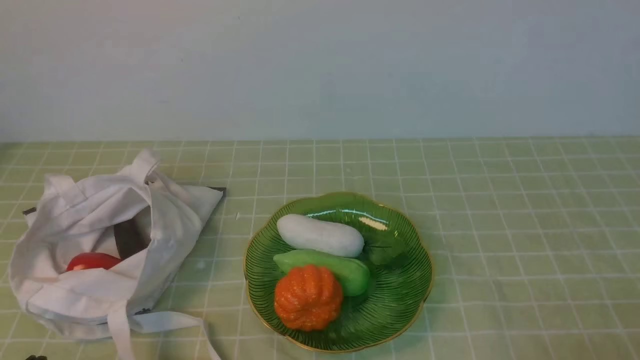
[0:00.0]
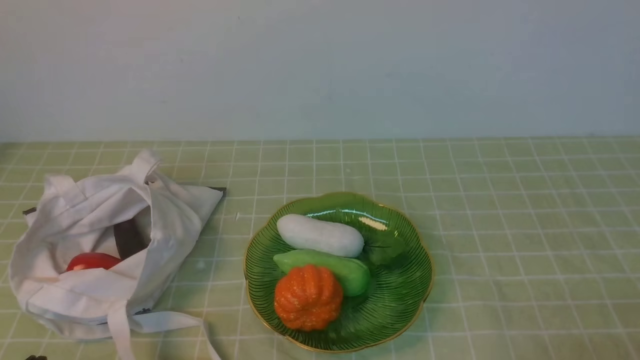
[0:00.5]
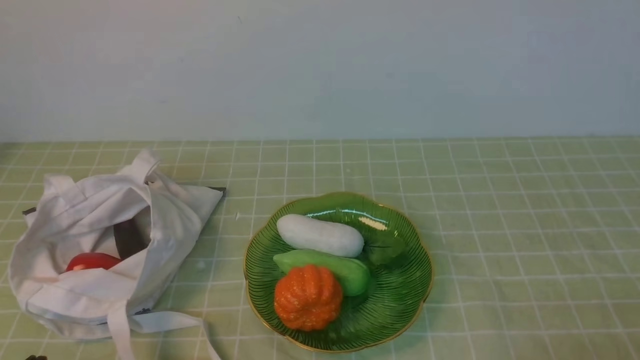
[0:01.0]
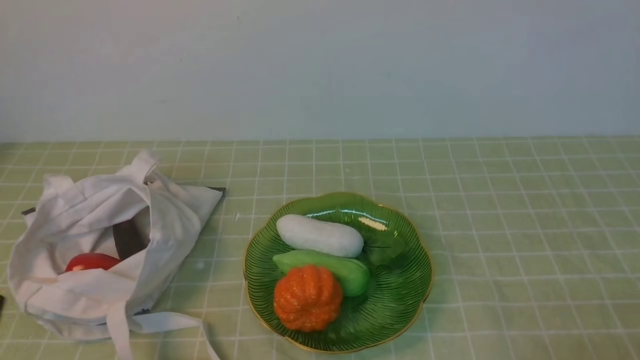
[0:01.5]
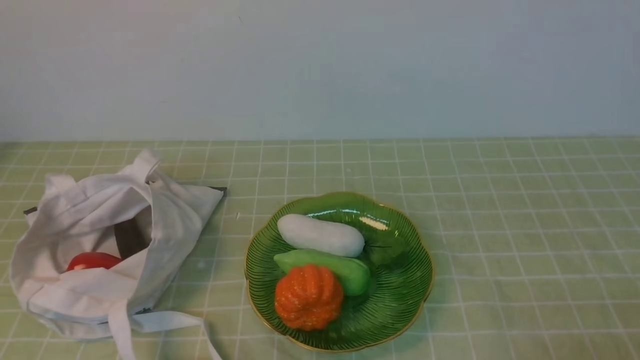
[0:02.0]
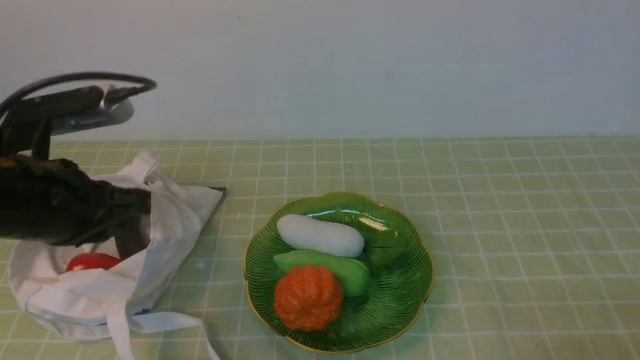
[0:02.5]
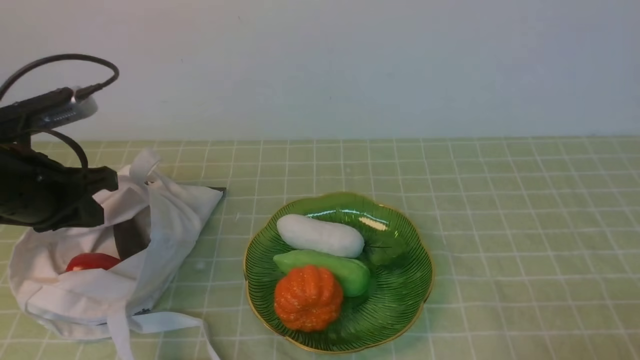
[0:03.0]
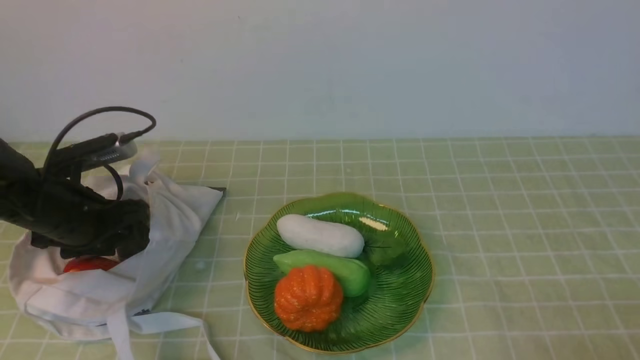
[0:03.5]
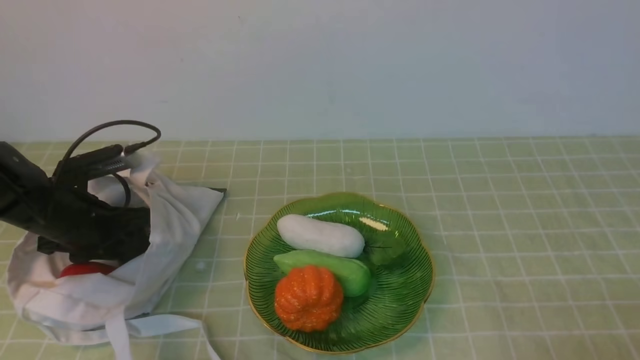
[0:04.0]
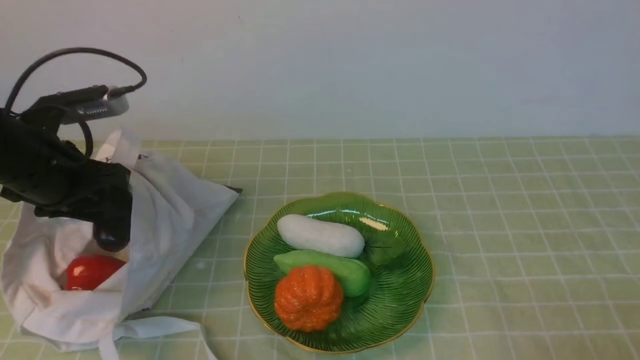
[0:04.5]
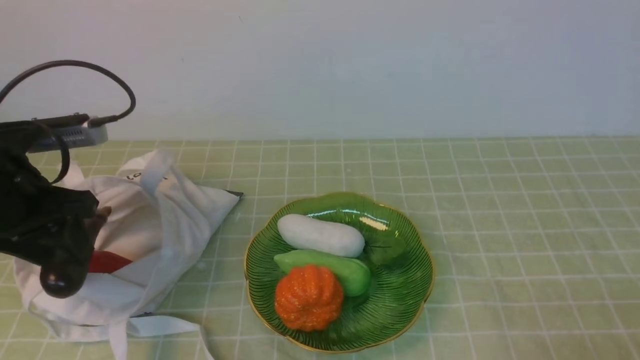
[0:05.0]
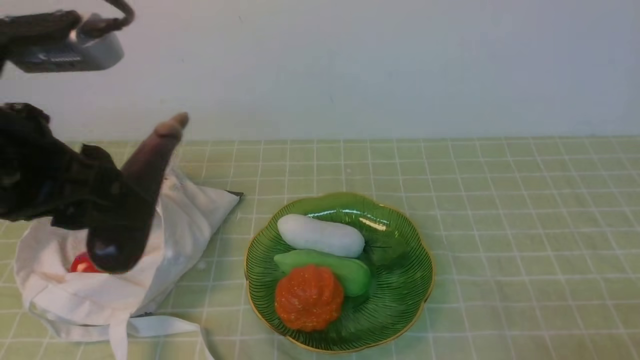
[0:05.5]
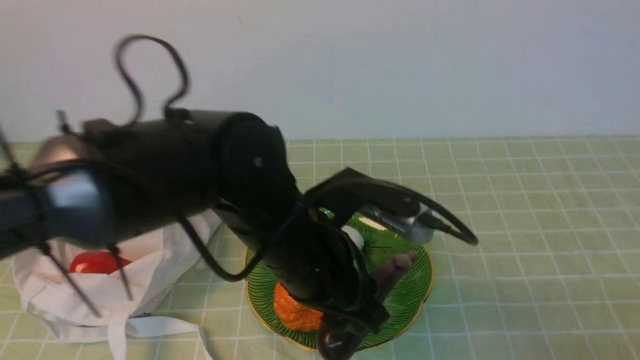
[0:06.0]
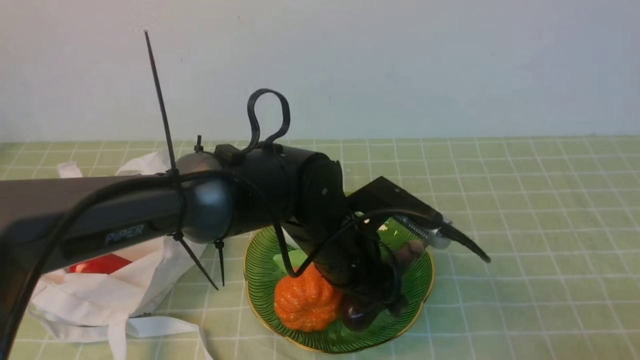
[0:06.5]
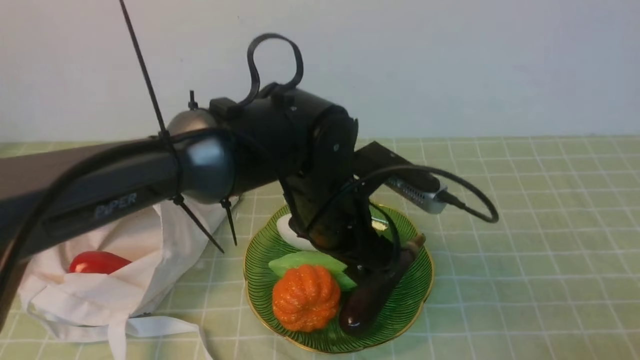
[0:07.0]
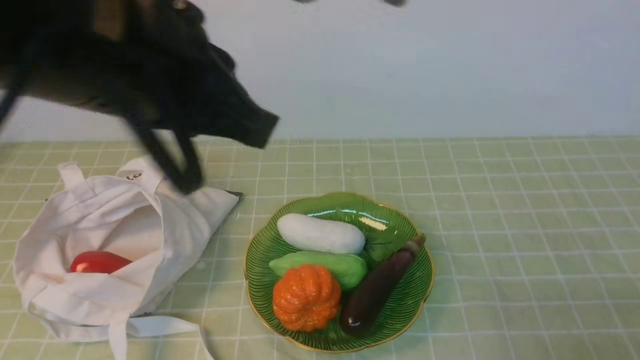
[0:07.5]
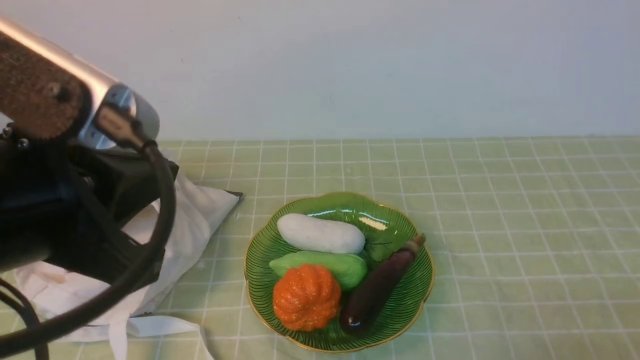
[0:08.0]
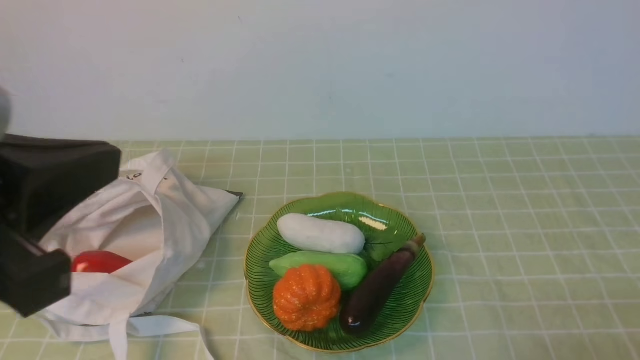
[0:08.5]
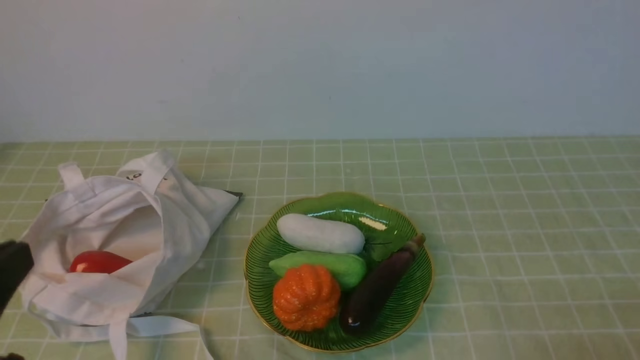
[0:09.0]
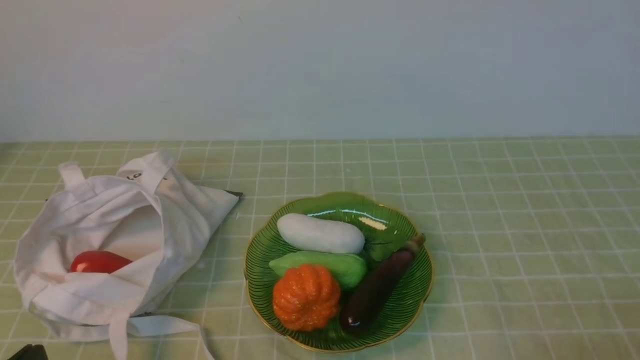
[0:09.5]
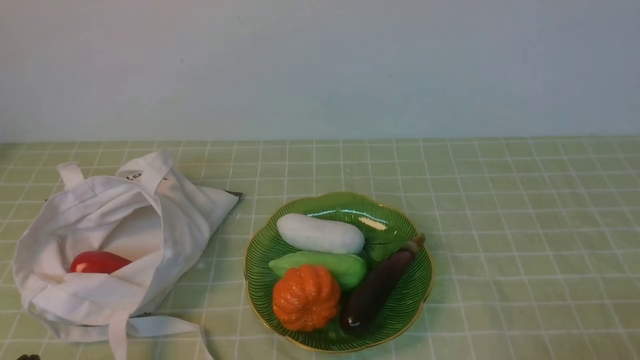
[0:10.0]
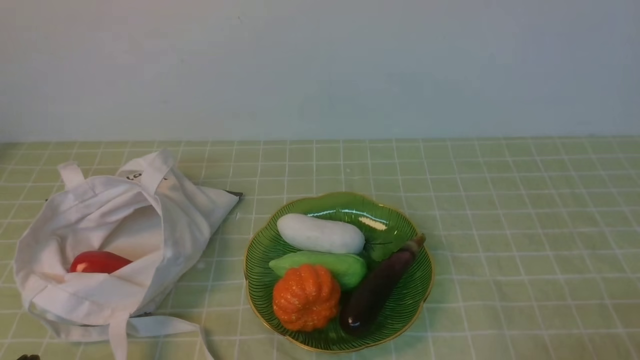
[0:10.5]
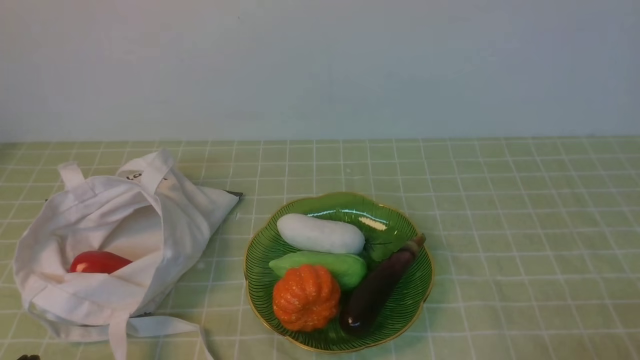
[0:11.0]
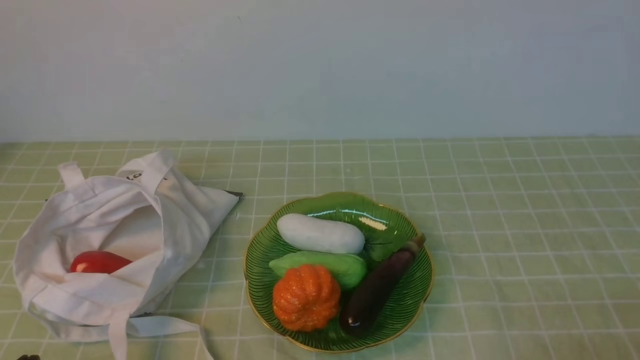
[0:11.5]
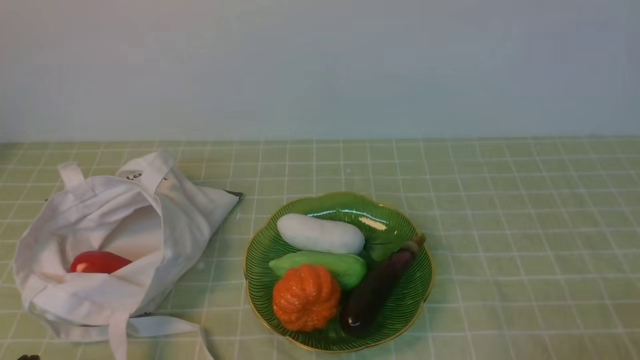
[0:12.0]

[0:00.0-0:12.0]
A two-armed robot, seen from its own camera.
Task of the whole recording: take vegetables from bag on green coffee tablecloth place on plate.
Step, 0:00.0 to 0:04.0: Grasp the eggplant with left gripper.
Step, 0:04.5 to 0:07.0: Place the eggplant on the plate with left gripper.
0:02.0 to 0:04.0: The left gripper goes some 30 cm forward and downward, and opens up.
0:04.0 to 0:06.0: The left gripper moves to the right, upward and backward, roughly 30 cm.
0:06.0 to 0:08.0: The left gripper moves upward, backward and to the left, about 20 cm, and closes its fingers.
0:08.0 to 0:10.0: The left gripper moves downward and to the left, some 25 cm.
0:10.0 to 0:12.0: The two grippers keep their place.

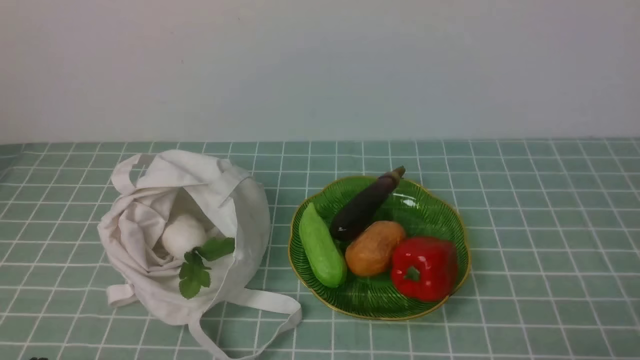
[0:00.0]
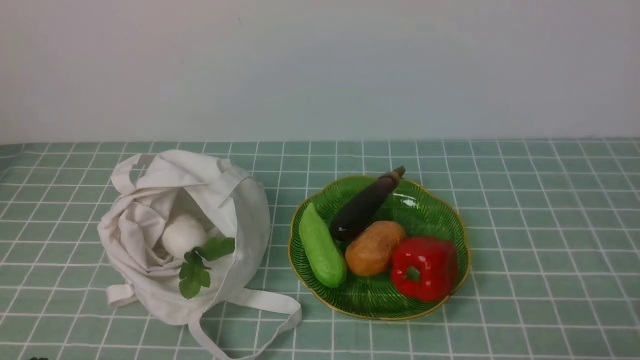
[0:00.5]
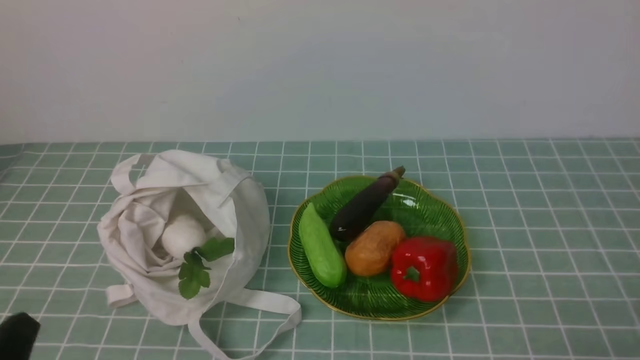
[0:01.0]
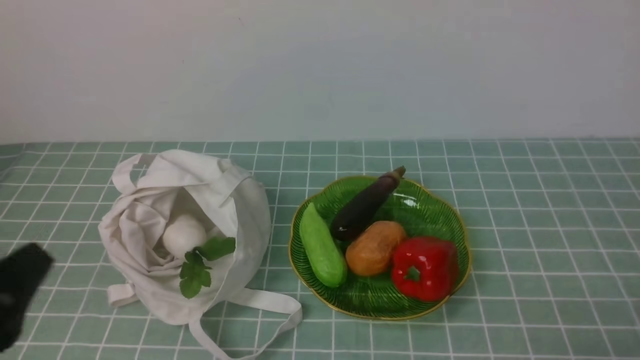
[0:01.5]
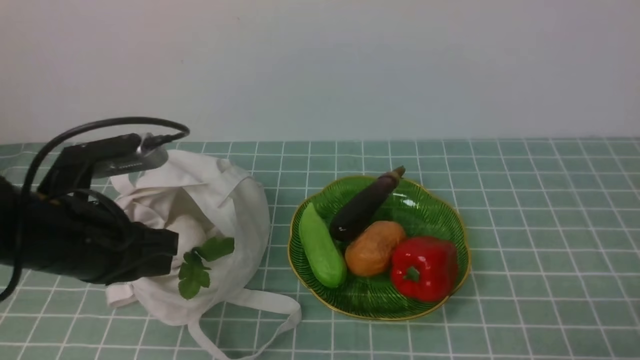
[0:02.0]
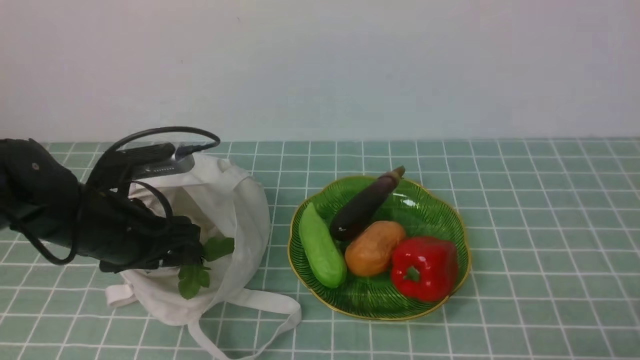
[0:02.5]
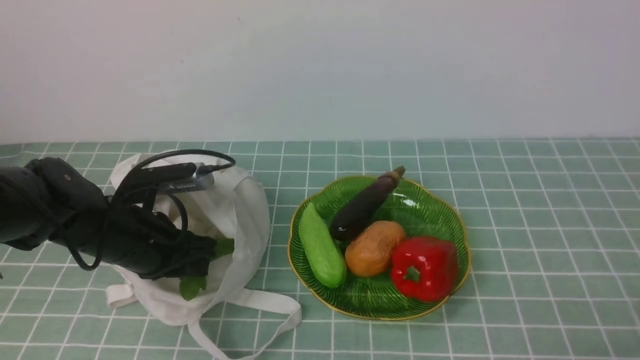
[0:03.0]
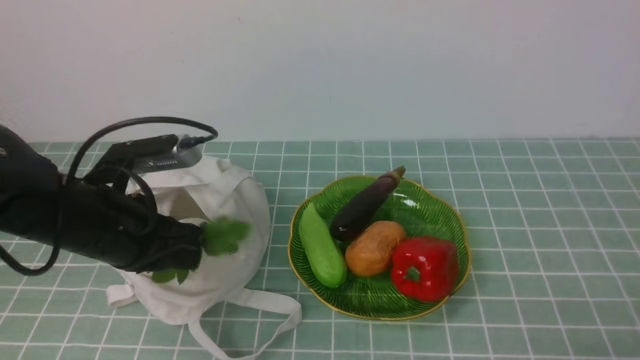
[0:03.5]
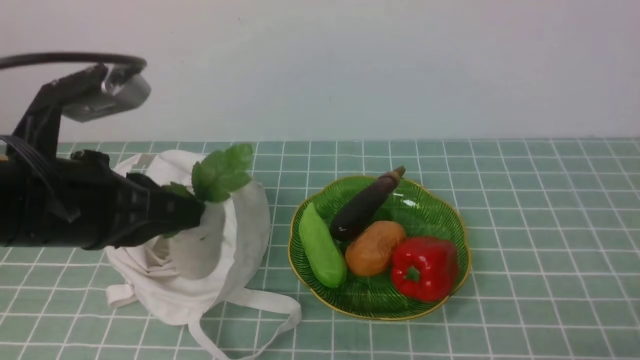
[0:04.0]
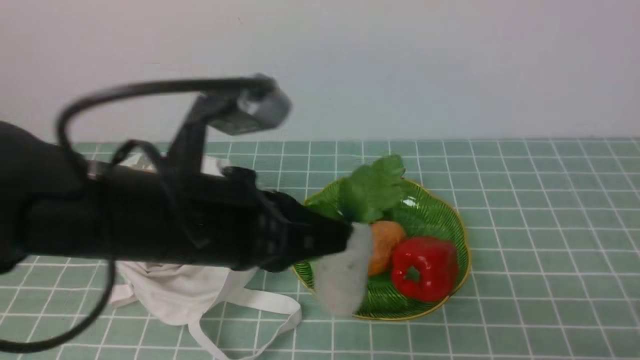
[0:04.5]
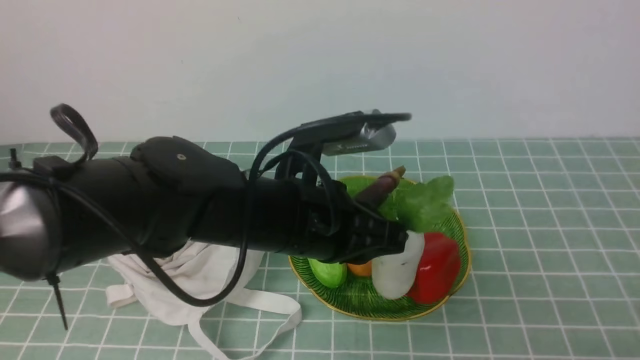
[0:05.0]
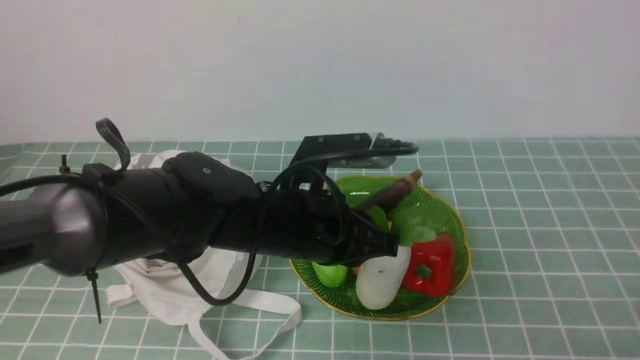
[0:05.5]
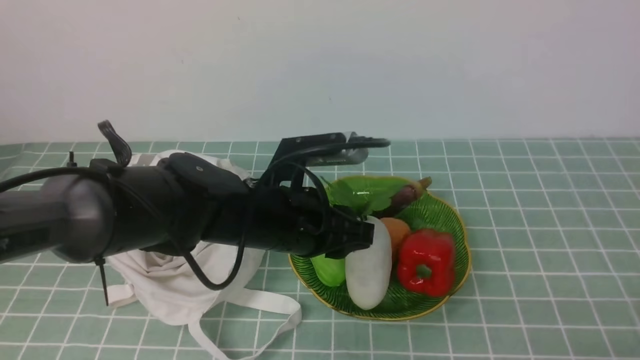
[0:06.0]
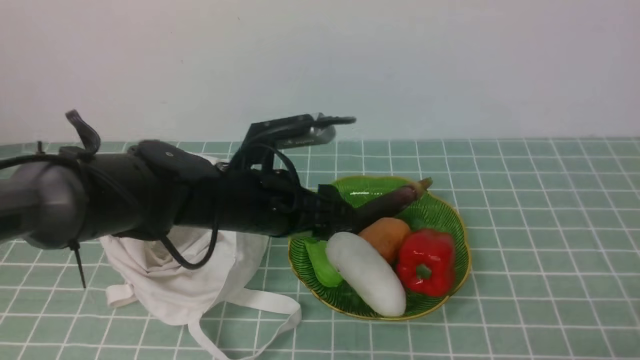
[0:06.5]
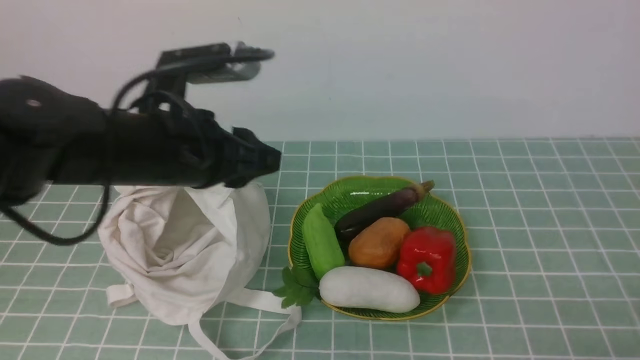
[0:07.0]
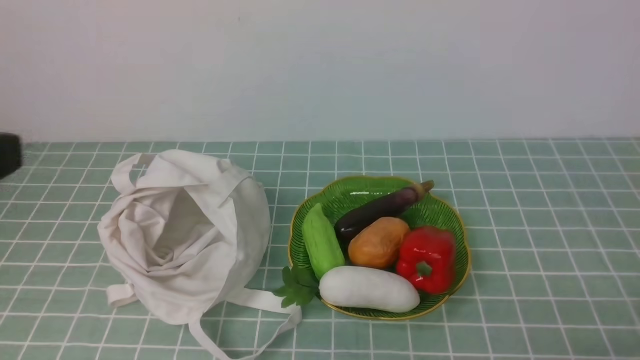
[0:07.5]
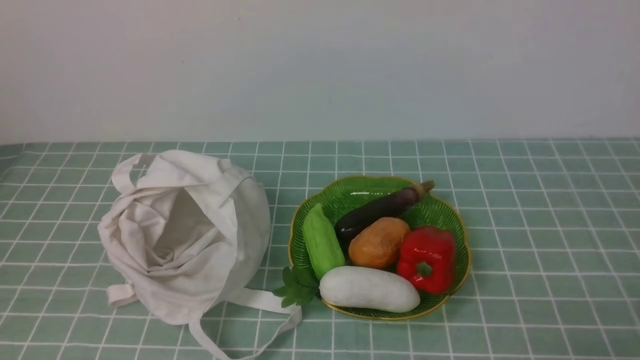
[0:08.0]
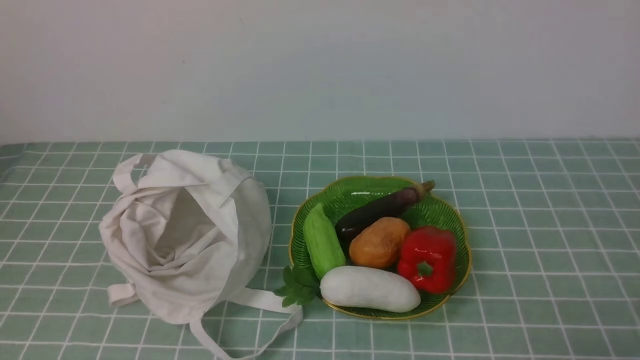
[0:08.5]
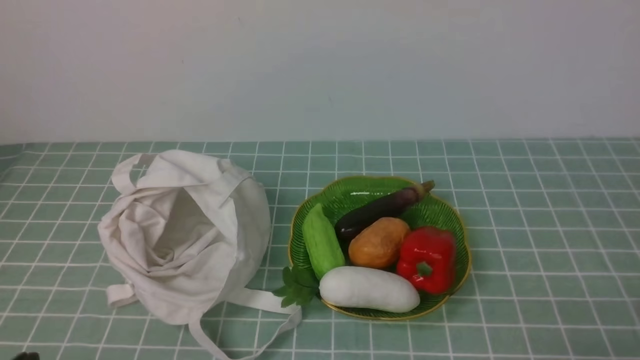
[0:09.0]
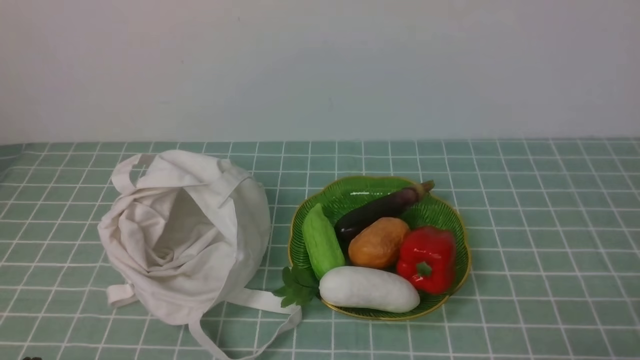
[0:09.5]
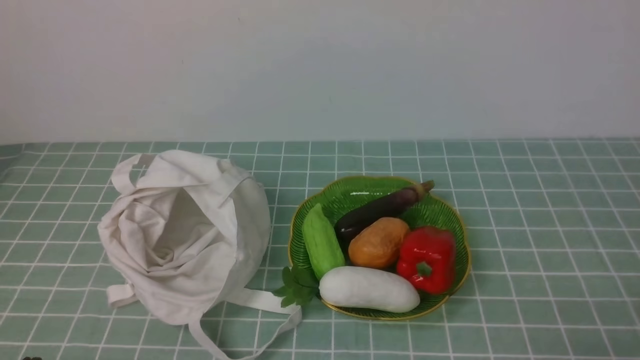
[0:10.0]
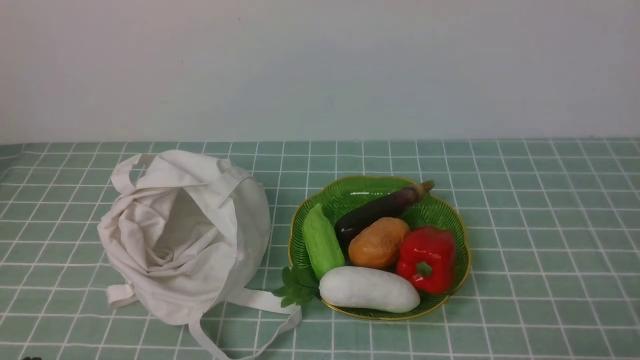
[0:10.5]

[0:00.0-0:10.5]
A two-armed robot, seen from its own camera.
Task of the whole recording: take vegetables from cloth bag on blue coffee tablecloth place on plate.
Step, 0:00.0 to 0:03.0: Grasp the radish with left gripper.
Step, 0:03.5 to 0:06.5: Place the radish on the plate with left gripper.
0:00.0 to 0:02.0: The left gripper goes about 20 cm forward and upward.
0:02.0 to 0:04.0: The left gripper goes about 5 cm upward, and opens, then closes again.
0:04.0 to 0:06.5: The left gripper goes approximately 15 cm to the right, downward and forward, and opens.
0:06.5 to 0:08.5: The left gripper is displaced backward and to the left by roughly 35 cm, and closes.
